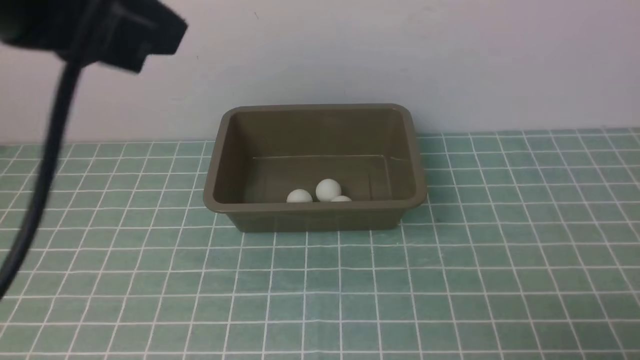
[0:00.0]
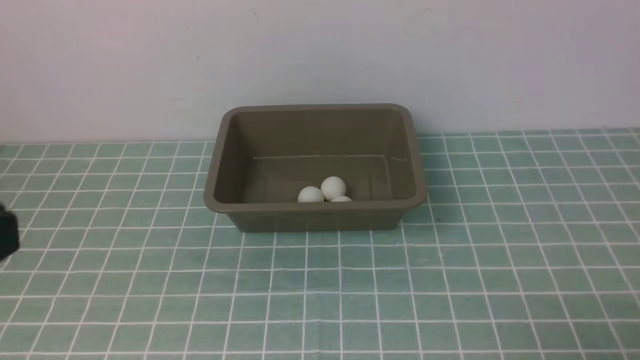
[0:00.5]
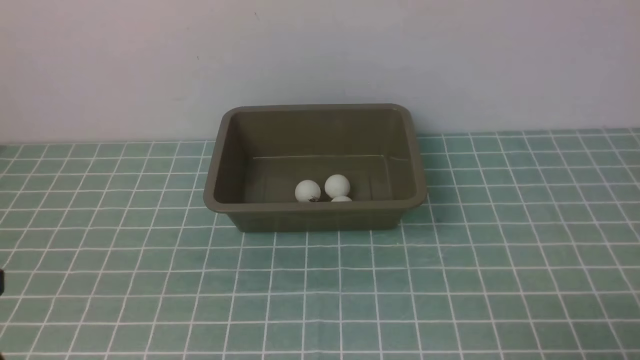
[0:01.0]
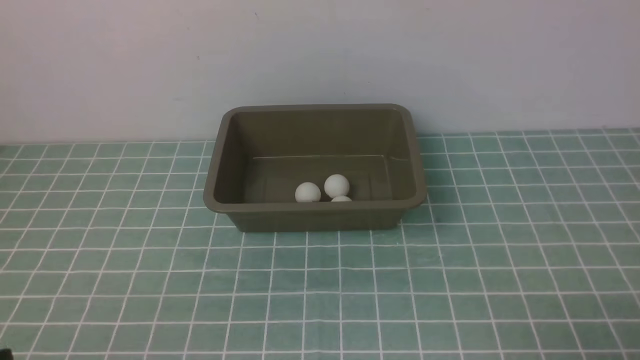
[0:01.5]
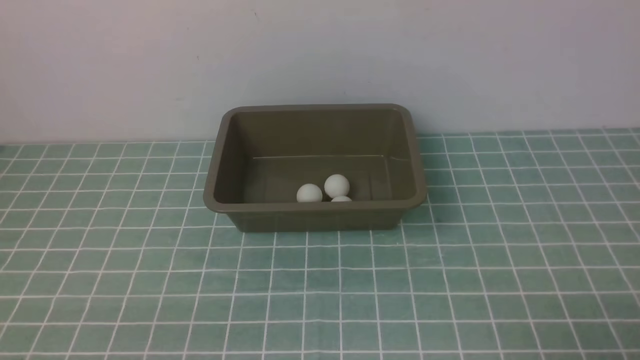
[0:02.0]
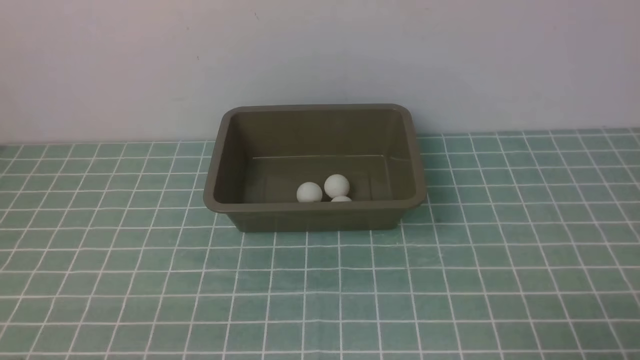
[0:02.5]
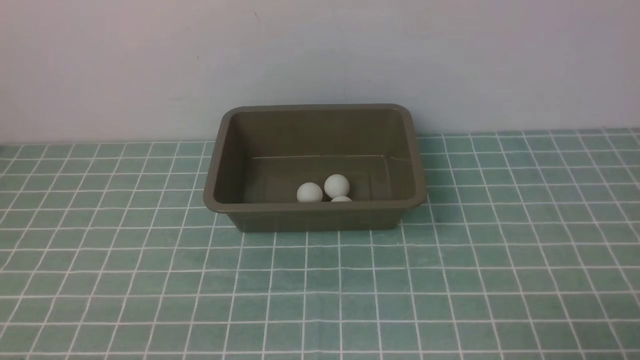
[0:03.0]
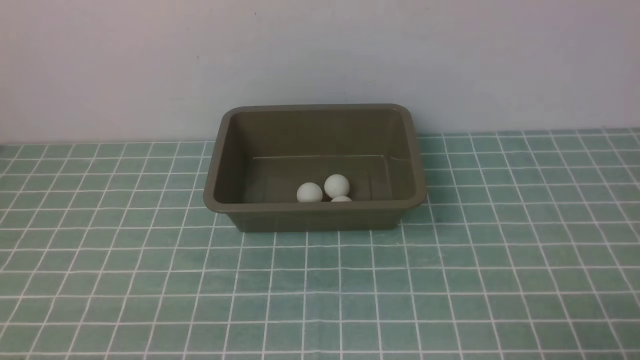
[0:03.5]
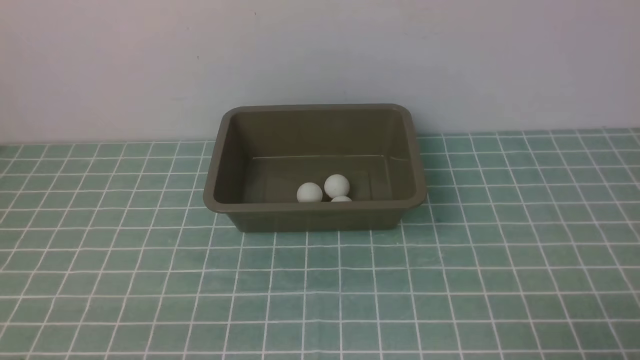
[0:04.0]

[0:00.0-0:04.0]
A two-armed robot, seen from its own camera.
0:00.0 to 0:02.0: The left gripper heads downward, covering about 30 cm.
0:02.0 to 0:04.0: The two grippers keep their place.
